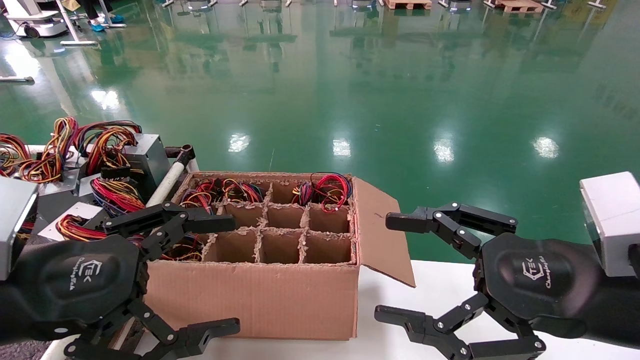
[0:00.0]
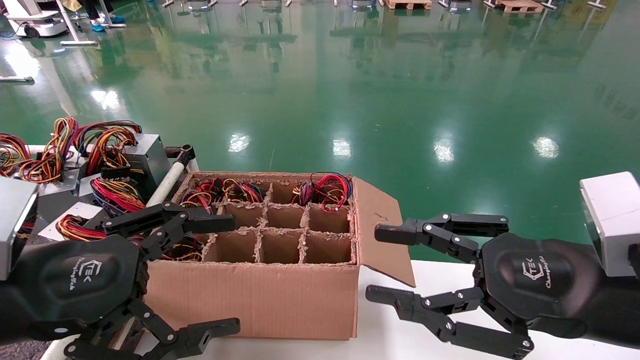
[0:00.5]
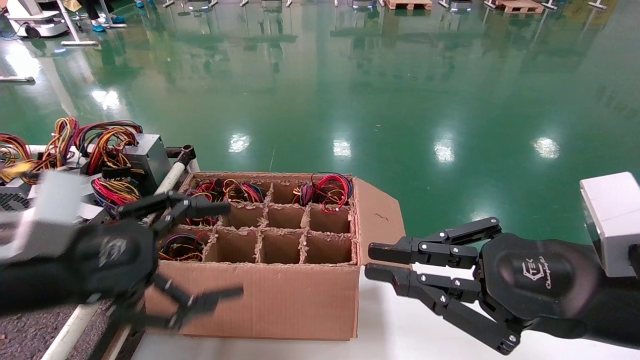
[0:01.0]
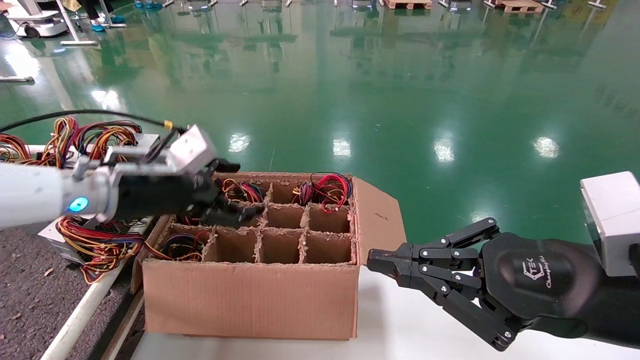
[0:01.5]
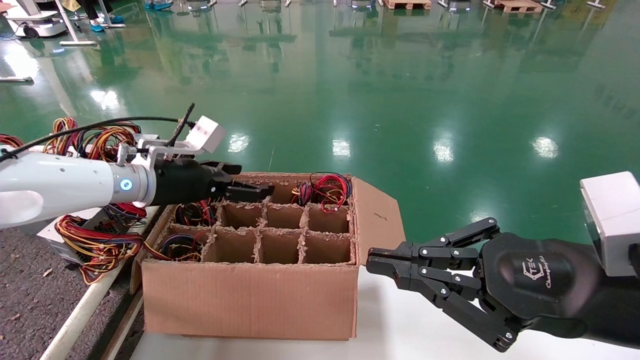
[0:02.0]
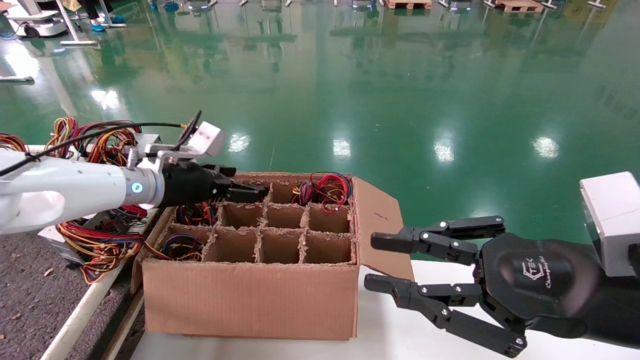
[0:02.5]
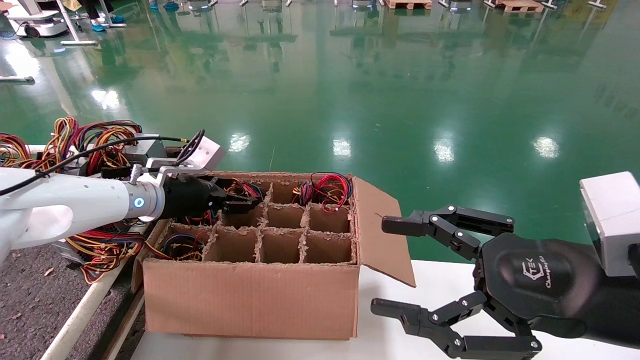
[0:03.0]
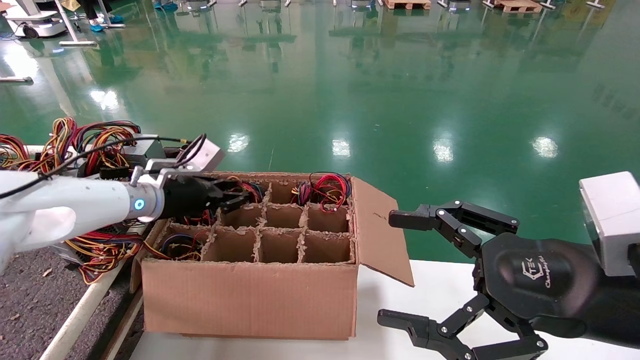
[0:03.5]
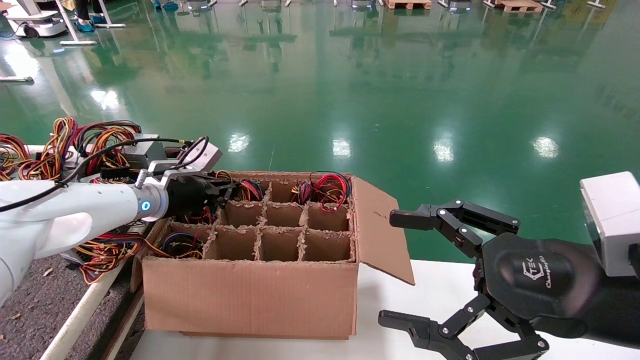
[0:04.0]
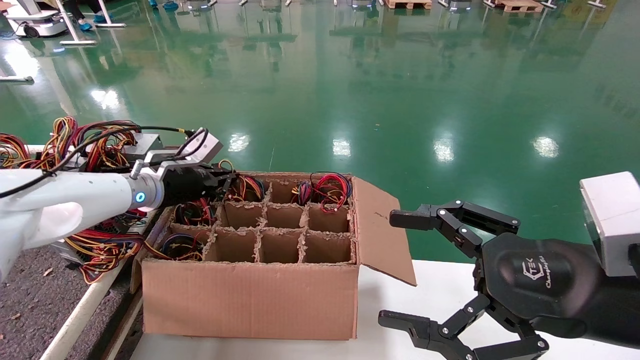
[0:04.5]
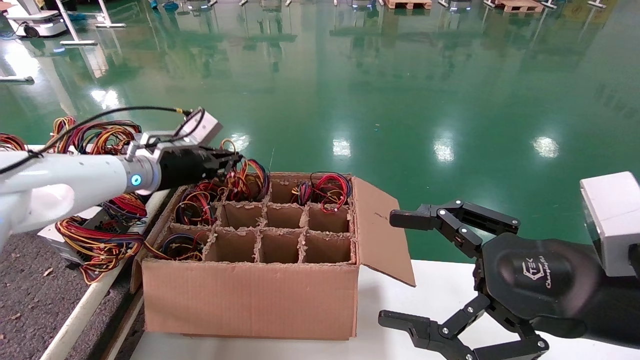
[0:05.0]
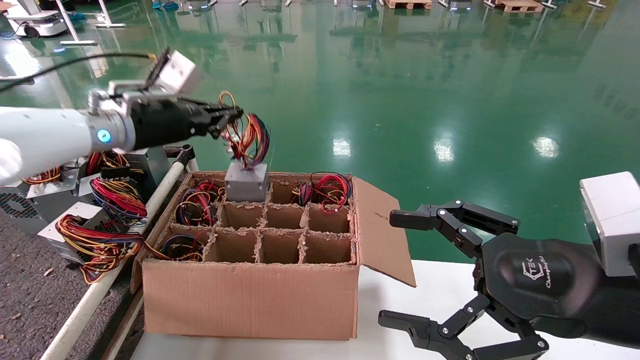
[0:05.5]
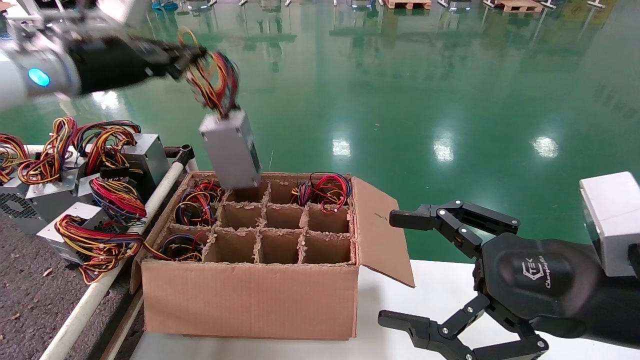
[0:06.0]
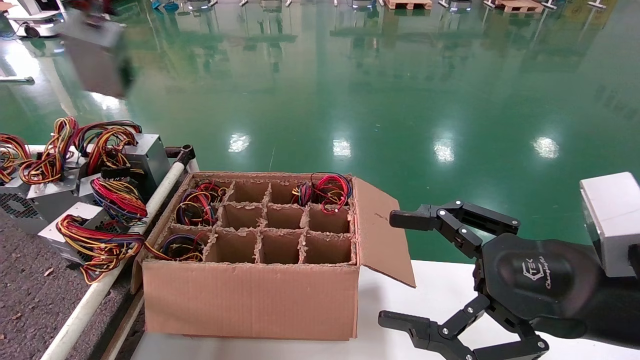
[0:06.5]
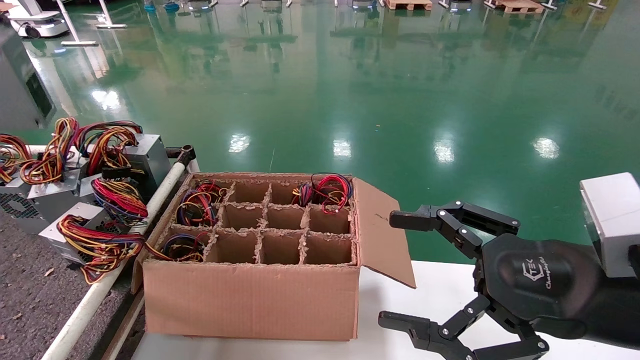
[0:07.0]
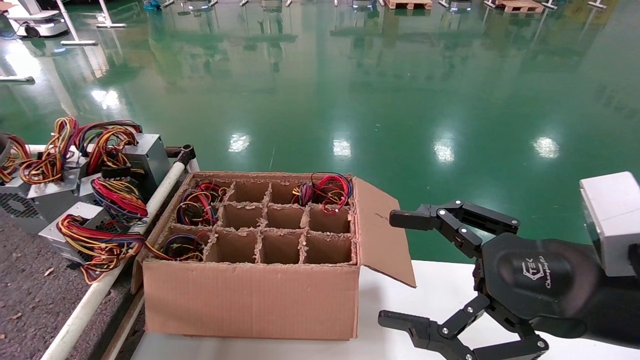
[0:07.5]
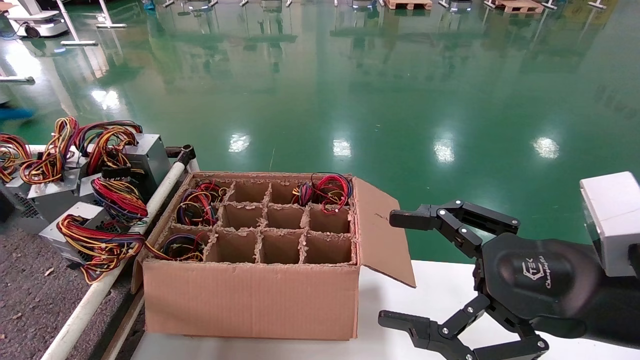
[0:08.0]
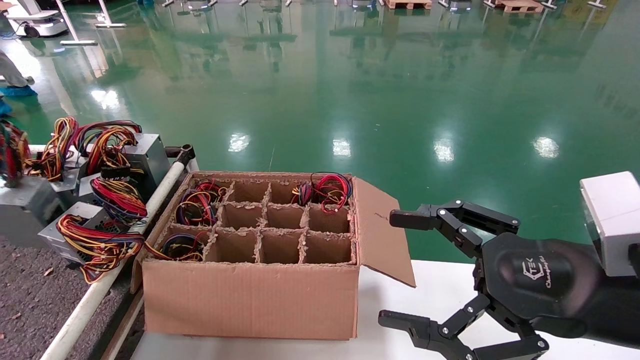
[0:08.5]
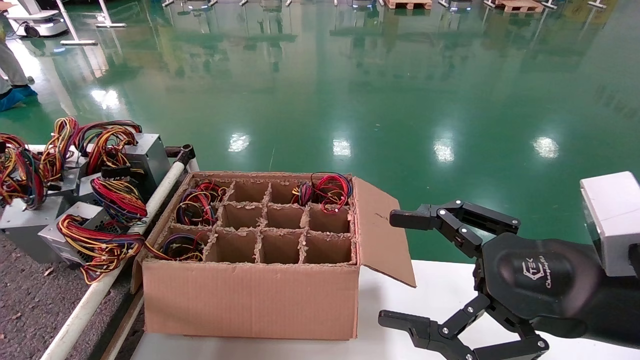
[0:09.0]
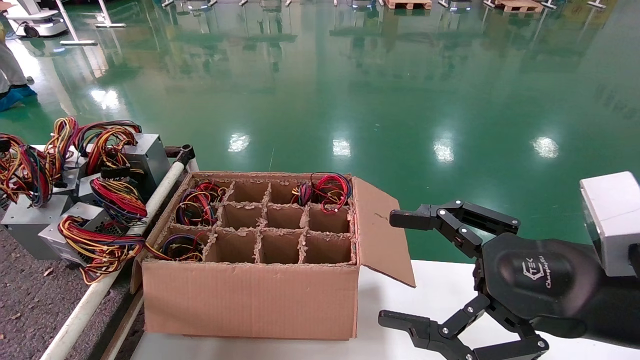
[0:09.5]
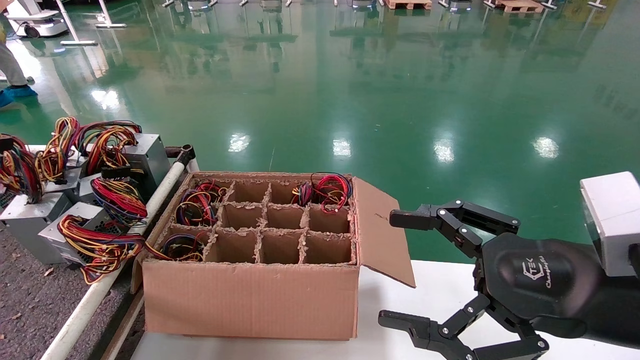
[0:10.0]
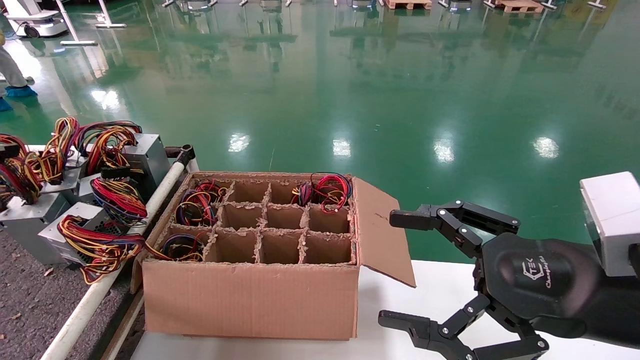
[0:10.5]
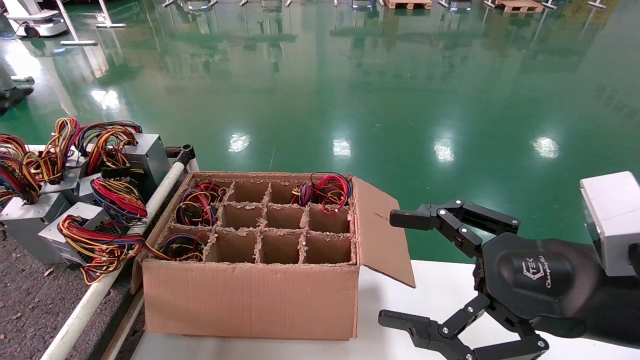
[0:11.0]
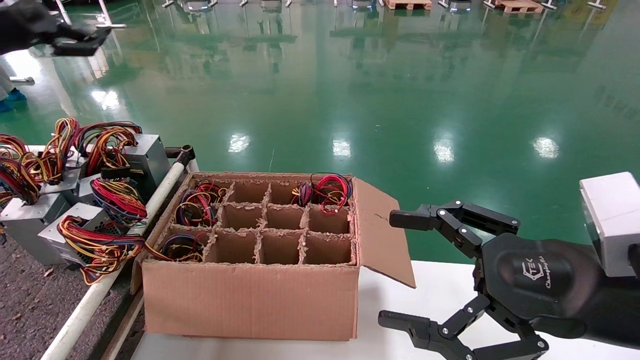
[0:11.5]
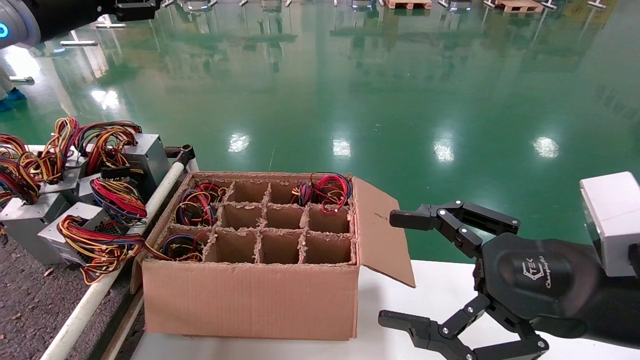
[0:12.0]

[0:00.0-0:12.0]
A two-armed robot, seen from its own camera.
Step, 0:01.0 to 0:04.5: Grab and lift the power supply from the large box.
Step, 0:05.0 to 0:10.5: Place the power supply on the operating table.
0:00.0 to 0:02.0: The left gripper goes about 25 cm forward, while the right gripper closes.
0:02.0 to 0:04.0: The left gripper shifts by approximately 5 cm, and closes up. Meanwhile the right gripper opens up.
0:04.0 to 0:06.0: The left gripper goes roughly 20 cm upward.
0:06.0 to 0:08.0: The left gripper heads to the left and backward, covering some 35 cm.
0:08.0 to 0:10.0: The left gripper shifts about 10 cm downward and forward.
0:10.0 to 0:12.0: The left gripper shifts about 30 cm to the right, upward and forward, and opens.

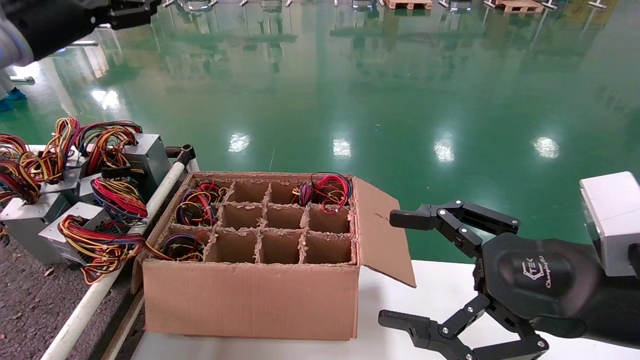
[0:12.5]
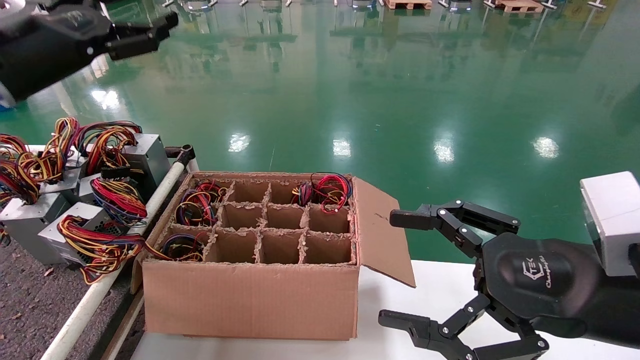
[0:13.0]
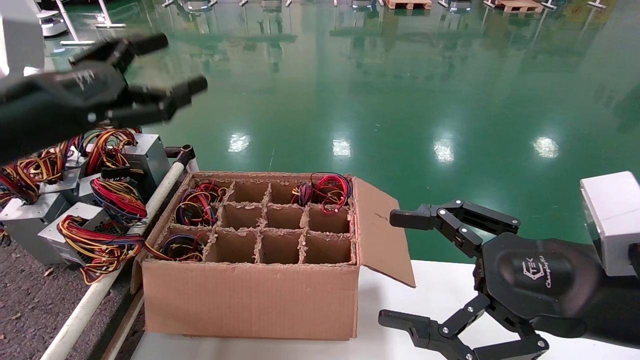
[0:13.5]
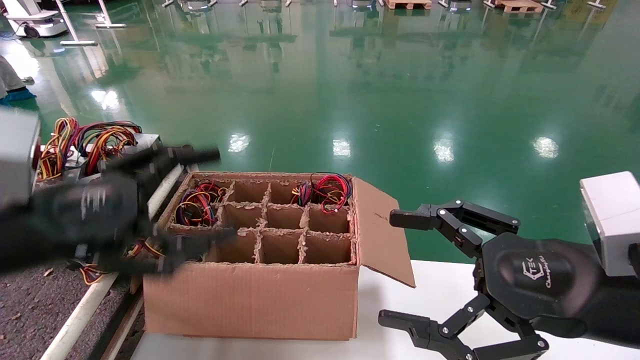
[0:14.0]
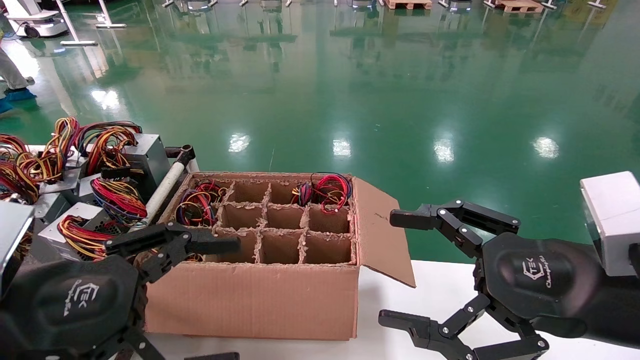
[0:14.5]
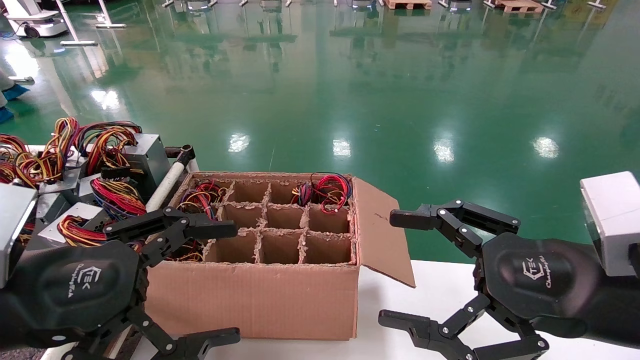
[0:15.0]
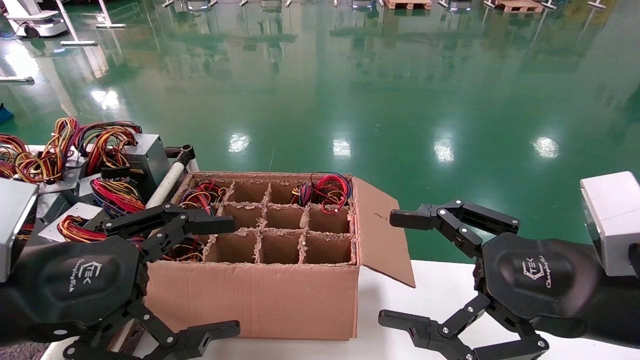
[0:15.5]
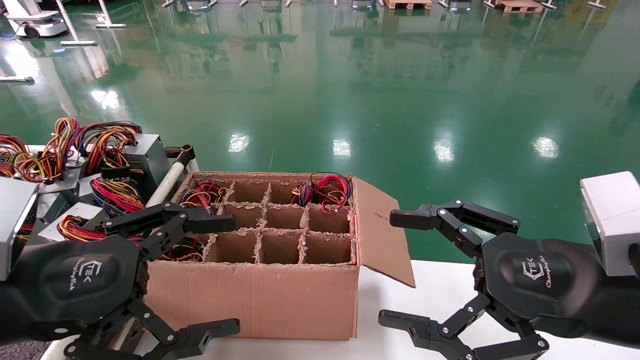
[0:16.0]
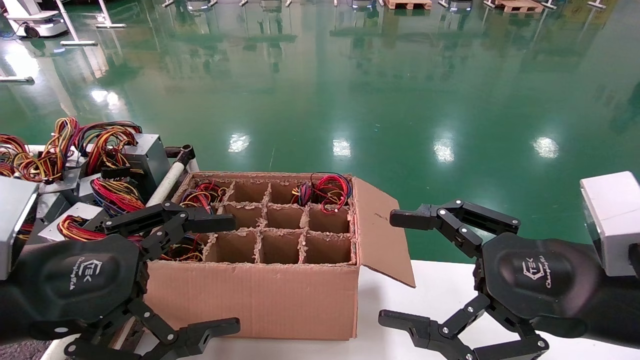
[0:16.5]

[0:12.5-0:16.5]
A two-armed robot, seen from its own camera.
0:12.5 to 0:14.5: The left gripper heads backward and downward, covering some 30 cm.
0:14.5 to 0:16.5: Both grippers stay about where they are.
